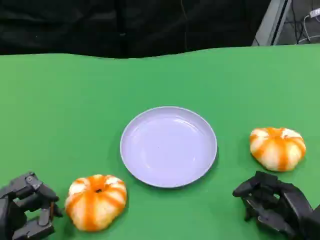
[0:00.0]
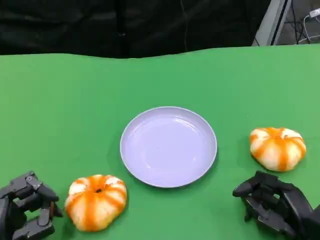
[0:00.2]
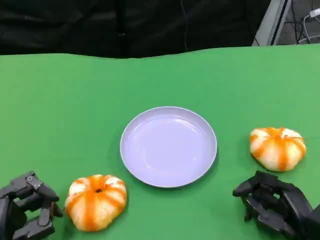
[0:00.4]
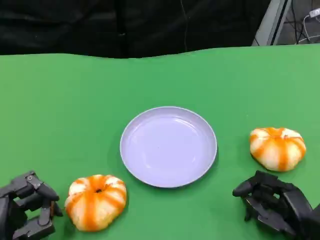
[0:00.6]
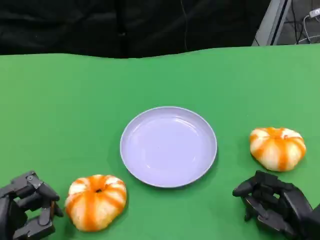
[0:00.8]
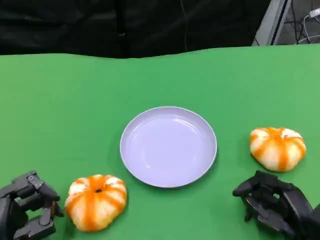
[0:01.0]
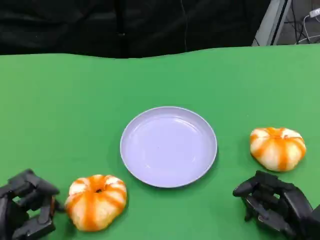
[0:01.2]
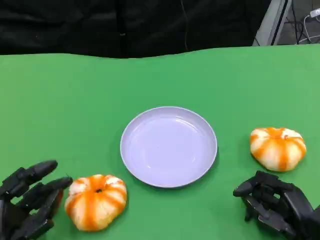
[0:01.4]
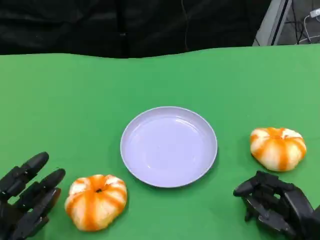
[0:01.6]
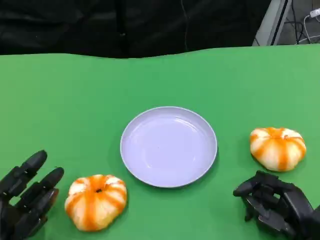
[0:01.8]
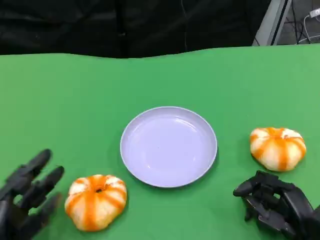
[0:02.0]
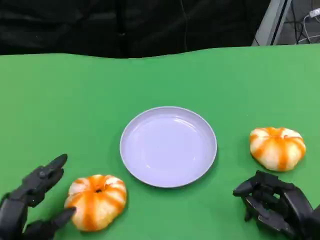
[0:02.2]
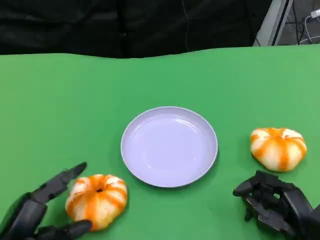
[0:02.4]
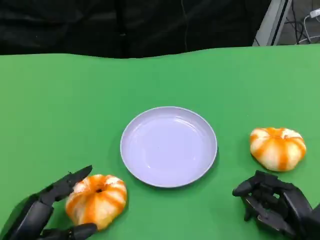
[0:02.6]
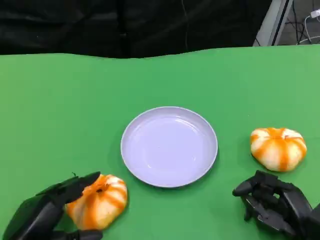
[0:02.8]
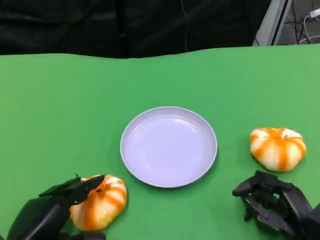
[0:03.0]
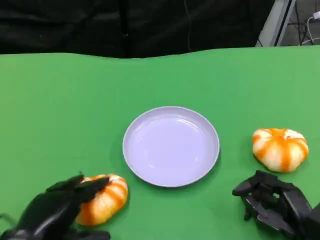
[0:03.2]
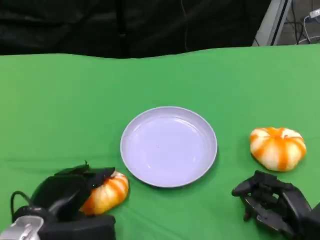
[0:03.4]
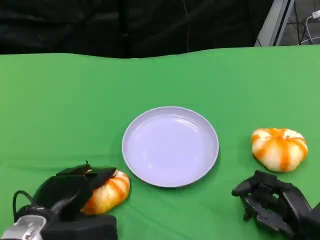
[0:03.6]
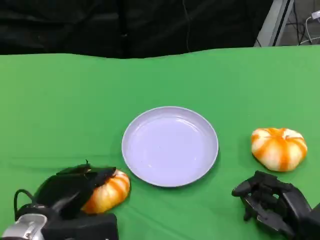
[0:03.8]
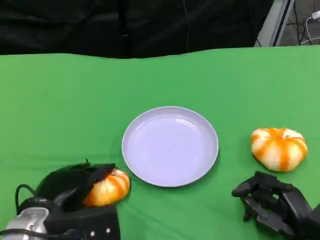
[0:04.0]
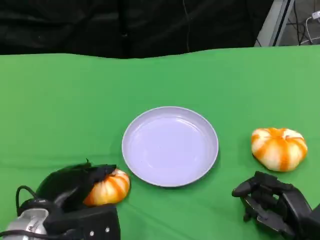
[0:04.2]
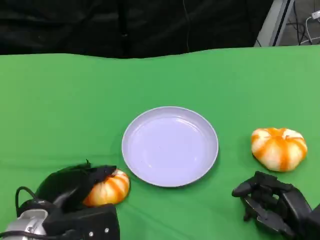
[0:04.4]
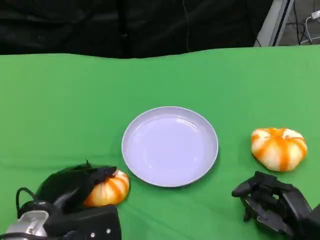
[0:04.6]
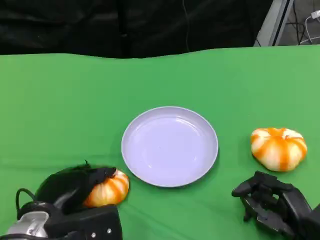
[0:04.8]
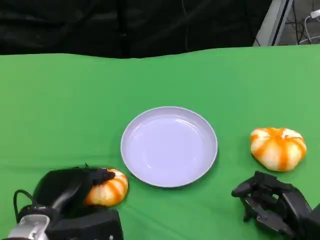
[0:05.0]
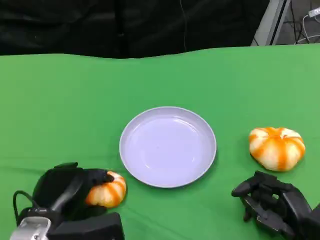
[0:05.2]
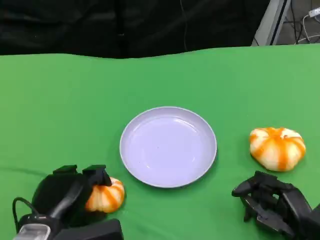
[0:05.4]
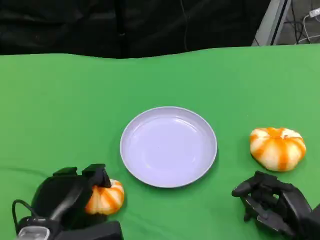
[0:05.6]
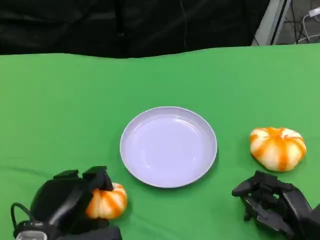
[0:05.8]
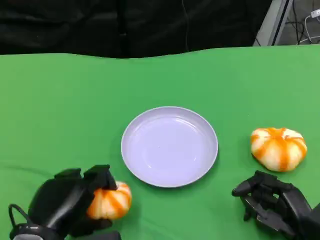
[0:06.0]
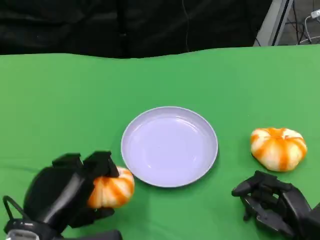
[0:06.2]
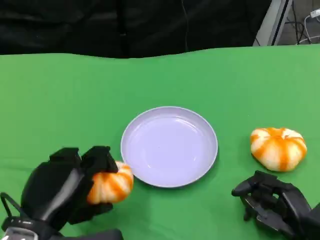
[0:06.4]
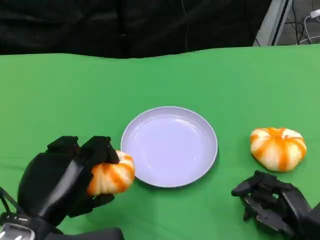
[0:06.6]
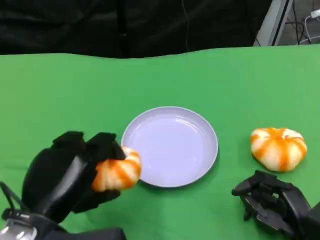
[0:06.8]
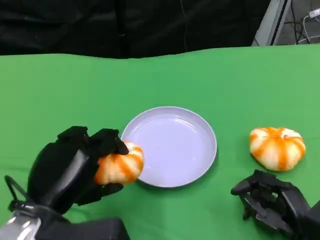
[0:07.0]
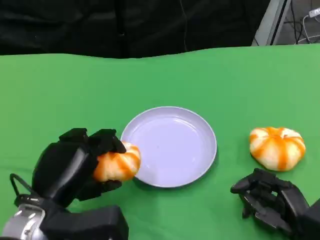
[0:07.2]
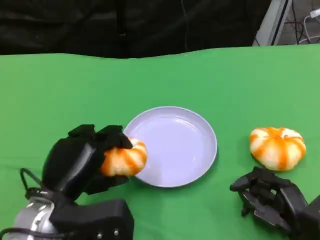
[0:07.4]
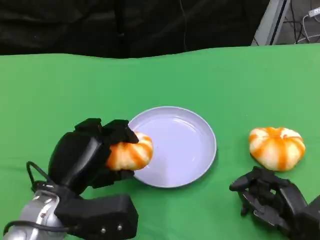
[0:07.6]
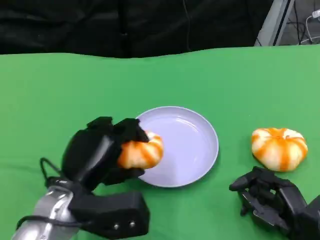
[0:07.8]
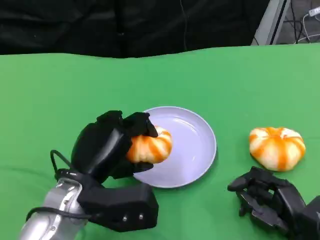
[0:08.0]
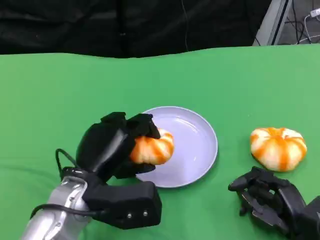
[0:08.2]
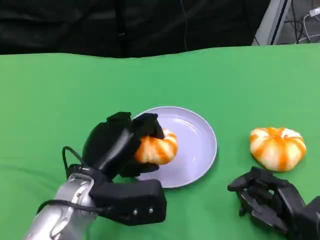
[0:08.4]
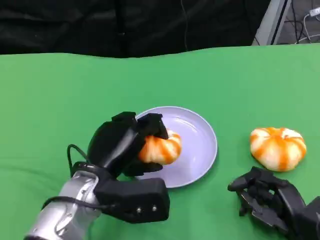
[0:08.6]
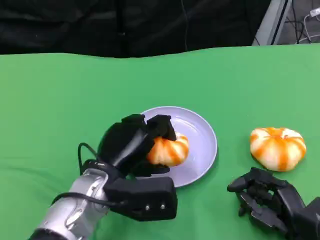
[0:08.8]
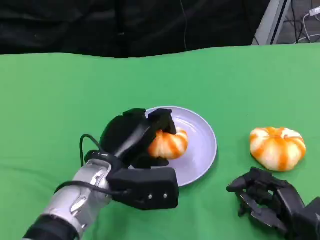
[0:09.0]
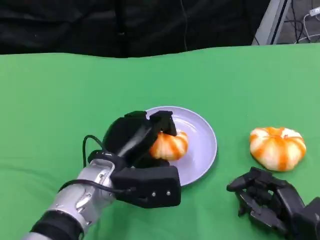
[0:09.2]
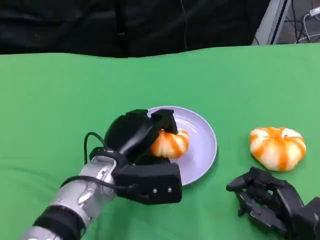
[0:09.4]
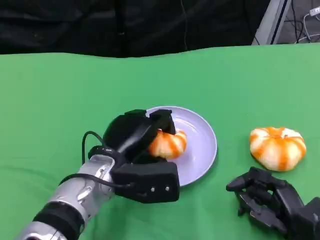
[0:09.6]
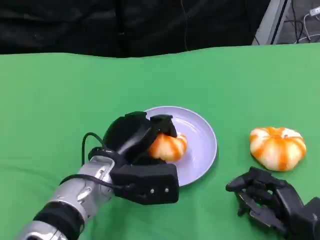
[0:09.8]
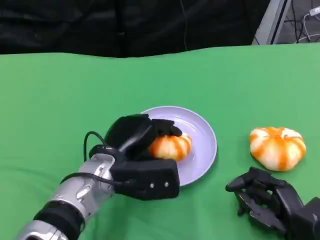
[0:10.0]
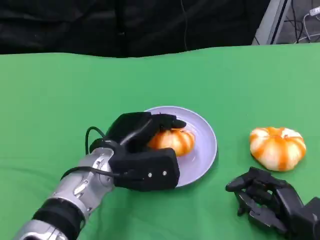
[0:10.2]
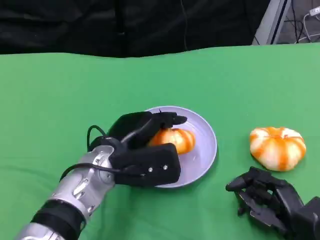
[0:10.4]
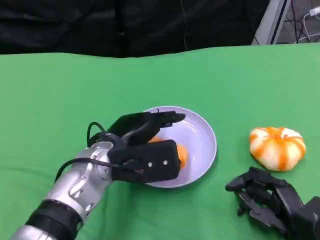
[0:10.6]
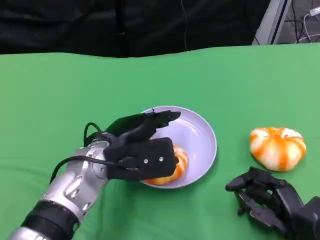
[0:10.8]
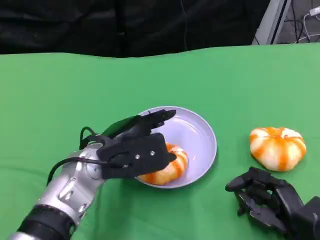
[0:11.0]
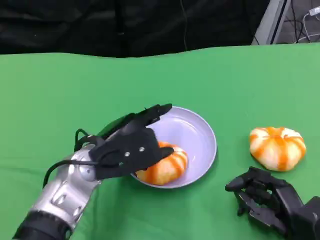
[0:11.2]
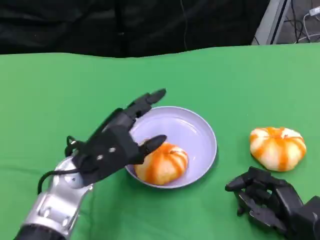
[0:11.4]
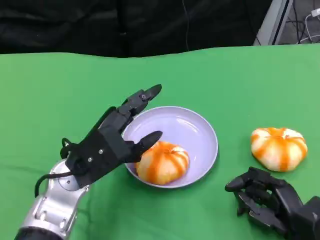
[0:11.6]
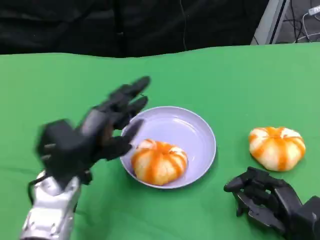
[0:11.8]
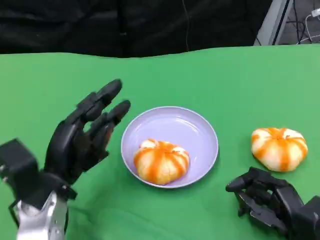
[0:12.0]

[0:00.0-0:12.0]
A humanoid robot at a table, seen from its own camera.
Task of the whole recording: Grasp the bread from the table and place it into the plate.
0:00.0 to 0:01.6: The hands stay close to where they were, moving slightly.
0:03.0 to 0:04.4: The left hand is displaced forward by approximately 5 cm.
0:04.4 to 0:06.0: The left hand shifts by some 5 cm.
0:06.0 to 0:07.6: The left hand travels forward by some 5 cm.
0:07.6 to 0:09.0: The left hand is displaced to the right by approximately 5 cm.
0:09.0 to 0:10.4: The hands make only small movements.
0:10.4 to 0:12.0: The left hand travels to the left by some 10 cm.

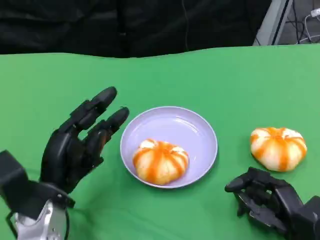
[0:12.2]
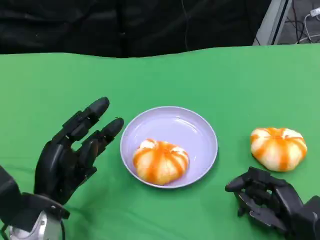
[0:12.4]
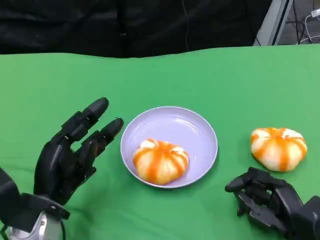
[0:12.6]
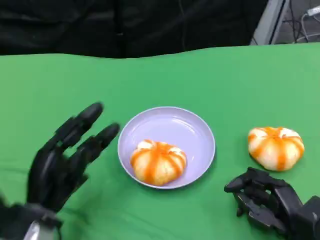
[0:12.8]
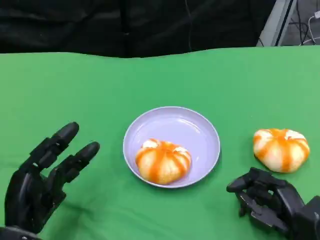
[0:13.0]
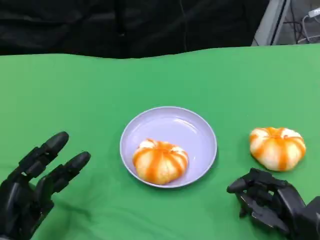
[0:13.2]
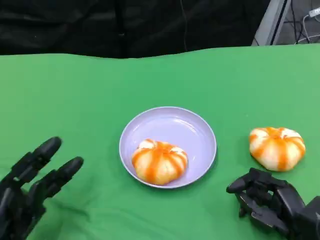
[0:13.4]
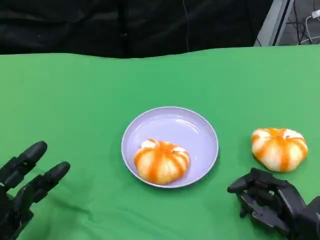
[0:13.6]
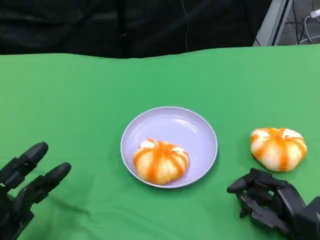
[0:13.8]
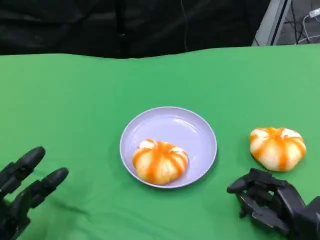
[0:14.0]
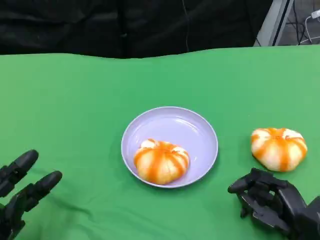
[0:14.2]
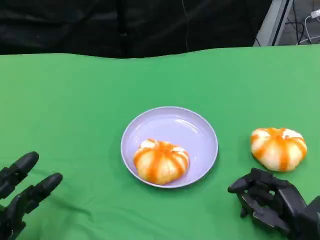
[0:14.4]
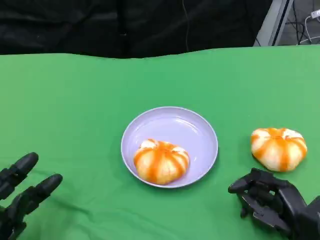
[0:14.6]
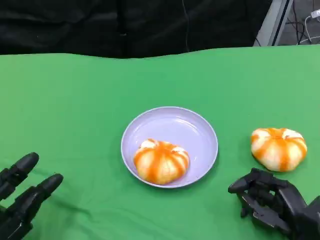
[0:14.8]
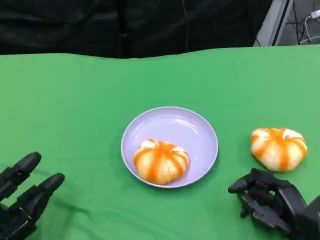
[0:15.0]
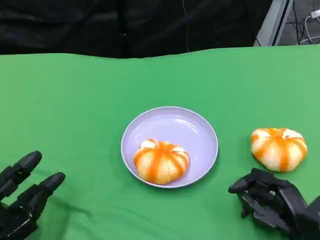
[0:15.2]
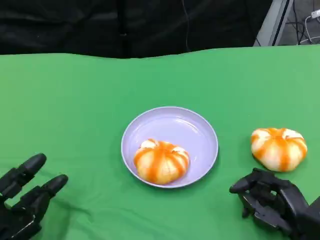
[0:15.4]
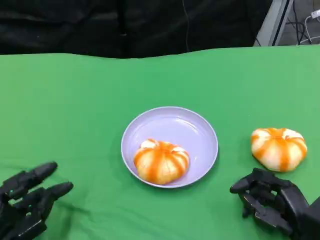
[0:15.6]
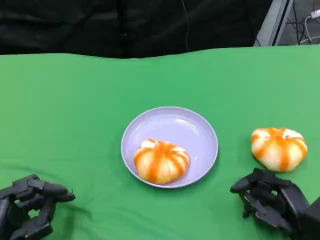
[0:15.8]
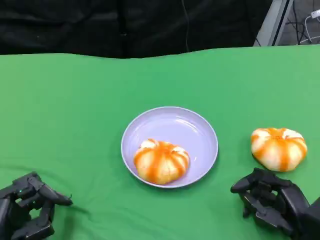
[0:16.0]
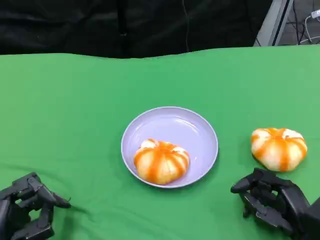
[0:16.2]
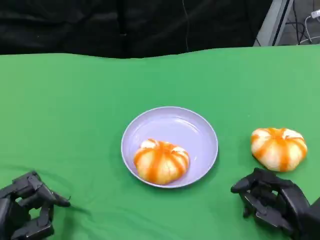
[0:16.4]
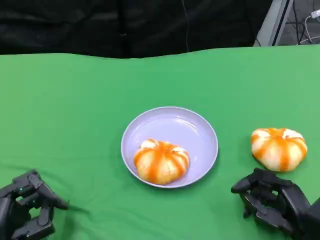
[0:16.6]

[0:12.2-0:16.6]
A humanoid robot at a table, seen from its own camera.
Task of the whole recording: Grasp the bread from the table and place it into the plate.
0:12.2 to 0:13.6: The left hand travels to the left and backward by about 10 cm.
0:13.6 to 0:16.6: The hands stay close to where they were, moving slightly.

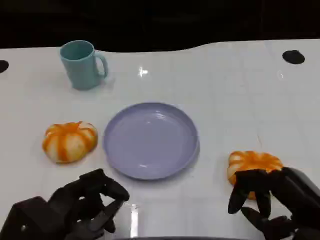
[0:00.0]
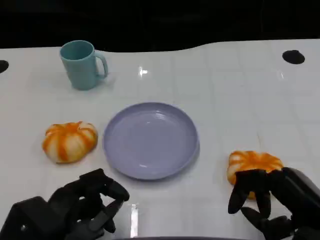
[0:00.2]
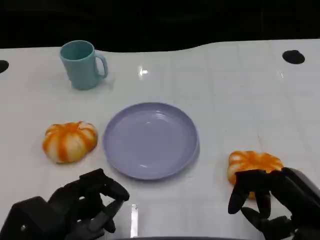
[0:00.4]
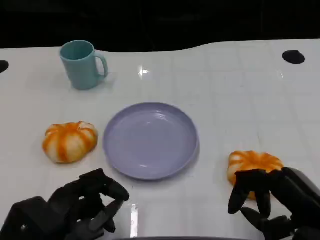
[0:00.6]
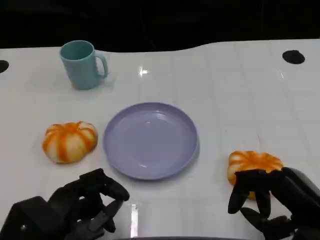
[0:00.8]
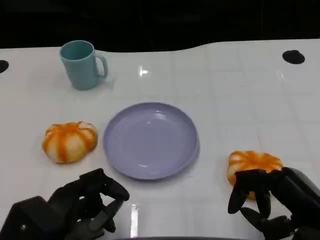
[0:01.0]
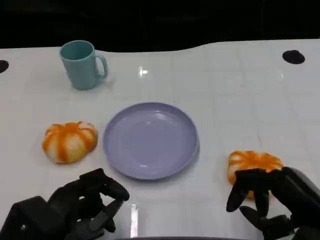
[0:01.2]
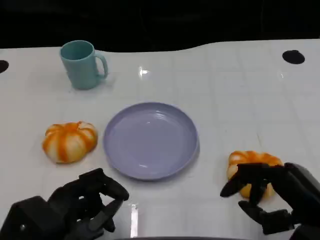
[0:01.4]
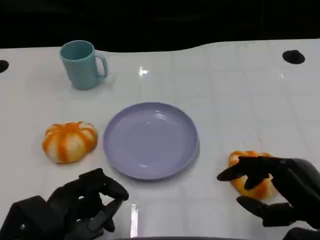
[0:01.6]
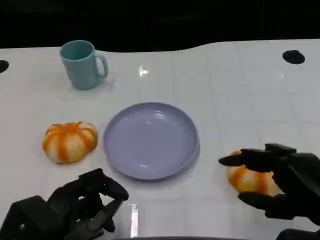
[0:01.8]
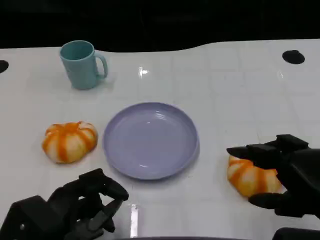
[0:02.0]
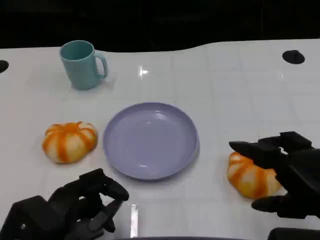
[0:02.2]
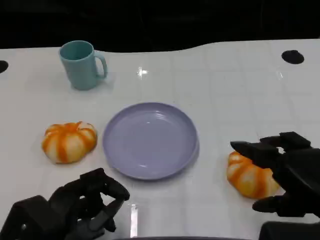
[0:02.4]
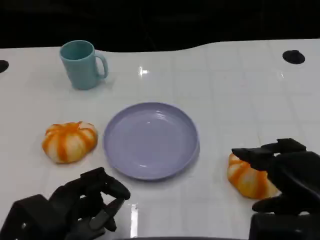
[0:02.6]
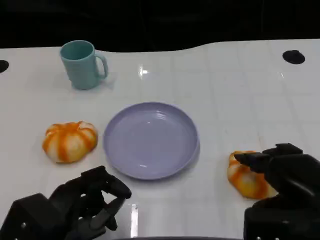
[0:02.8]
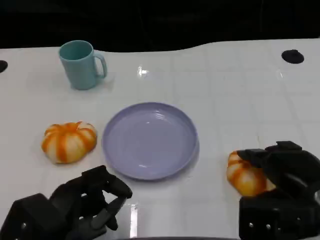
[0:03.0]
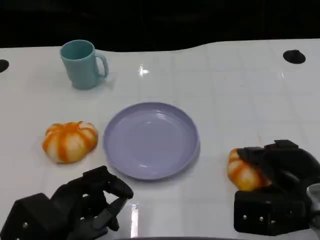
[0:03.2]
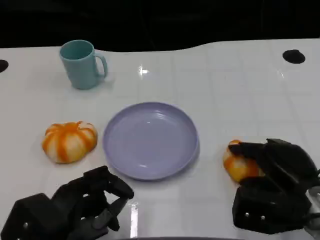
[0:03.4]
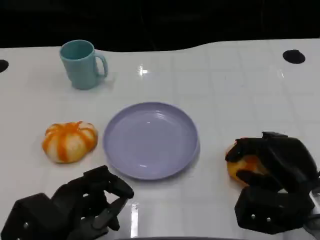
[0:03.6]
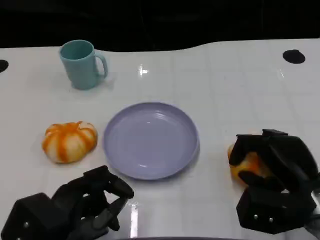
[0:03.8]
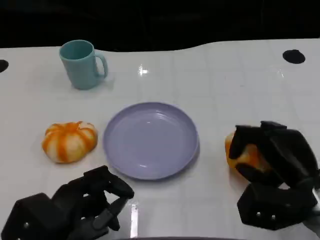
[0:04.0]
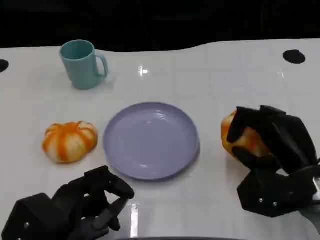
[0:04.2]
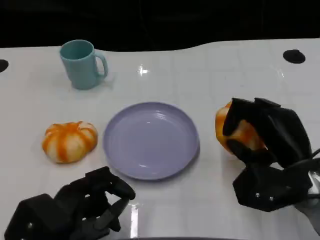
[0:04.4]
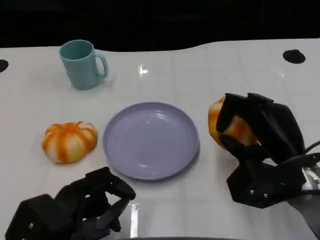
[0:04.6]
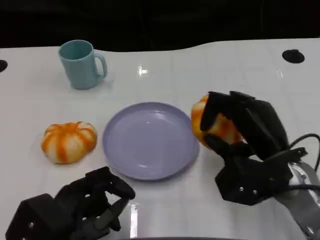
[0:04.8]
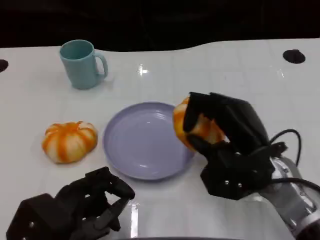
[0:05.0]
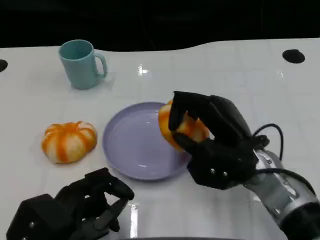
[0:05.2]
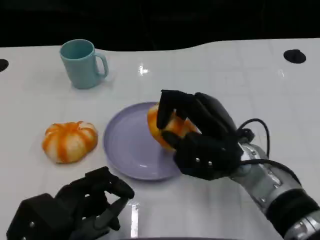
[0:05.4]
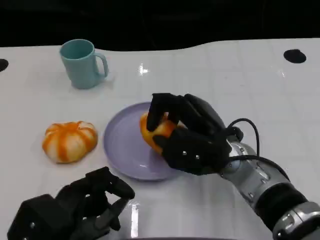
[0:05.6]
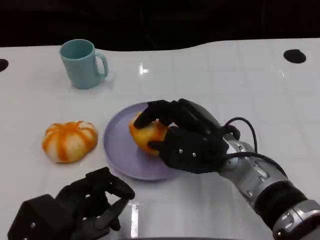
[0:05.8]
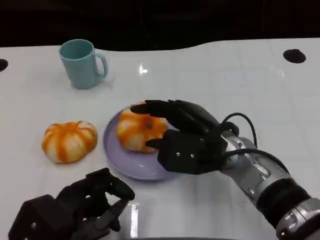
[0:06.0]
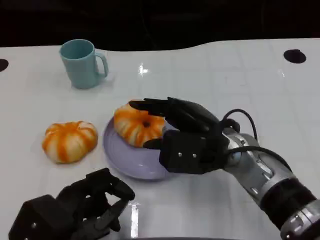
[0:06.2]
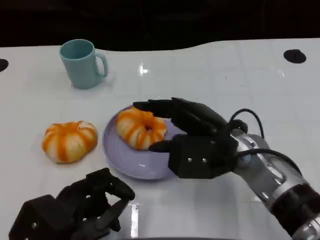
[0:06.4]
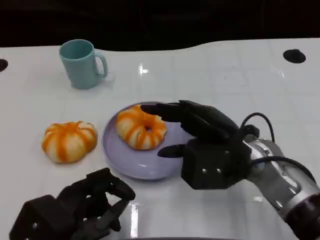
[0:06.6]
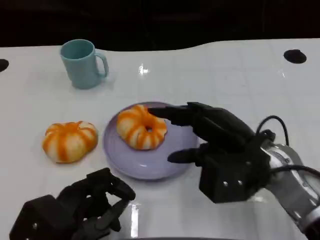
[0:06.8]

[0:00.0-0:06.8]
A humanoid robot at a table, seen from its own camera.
Task of the whole recording: Grasp the bread from the table and place it into the plate.
0:00.0 to 0:01.4: Both hands stay put.
0:02.8 to 0:04.0: The right hand changes place by roughly 5 cm.
0:04.0 to 0:05.4: The right hand is displaced to the left by some 10 cm.
0:05.4 to 0:06.8: The right hand is displaced to the right by roughly 5 cm.
